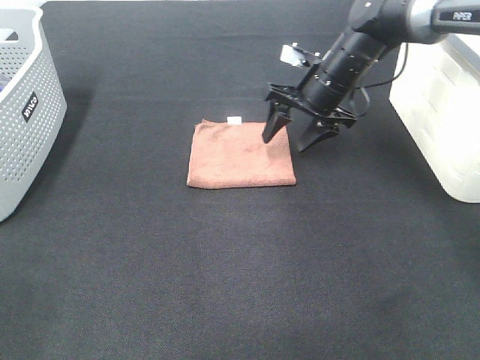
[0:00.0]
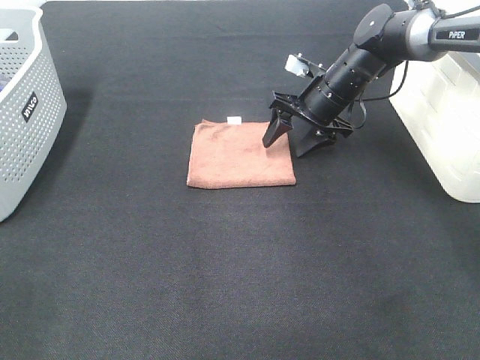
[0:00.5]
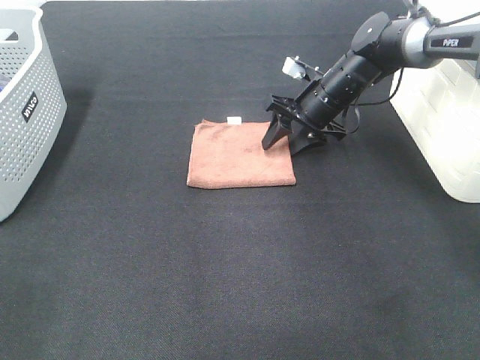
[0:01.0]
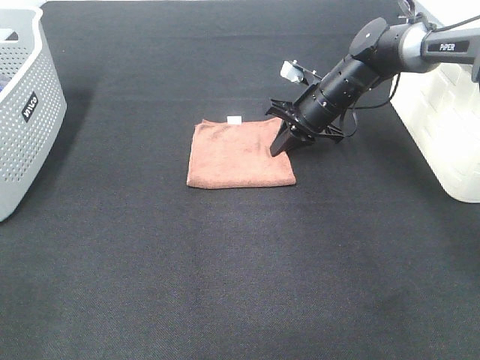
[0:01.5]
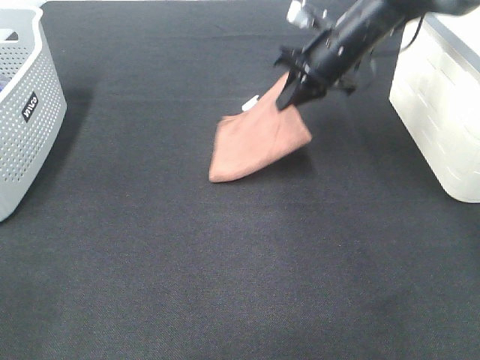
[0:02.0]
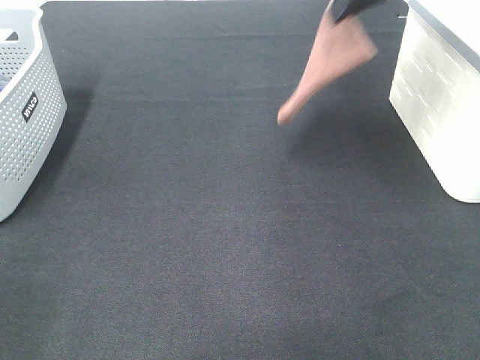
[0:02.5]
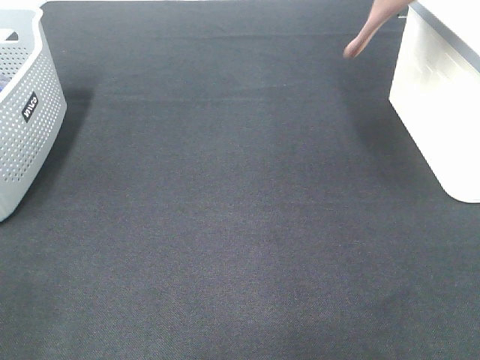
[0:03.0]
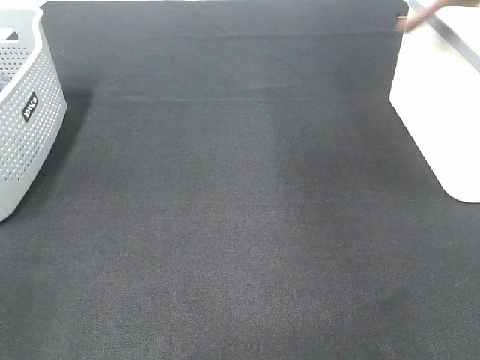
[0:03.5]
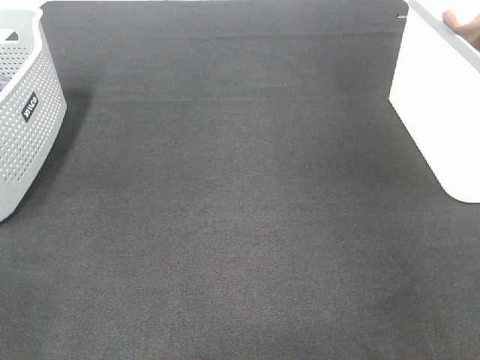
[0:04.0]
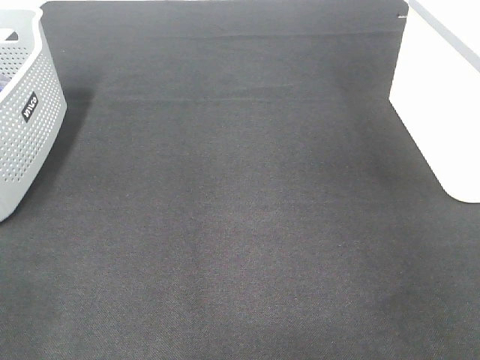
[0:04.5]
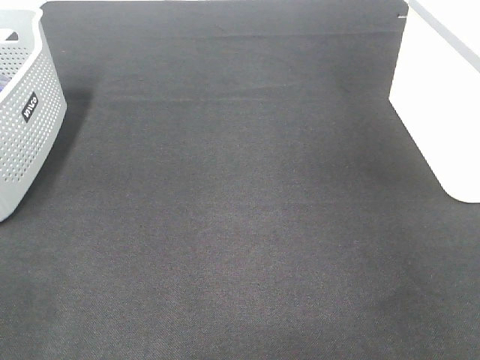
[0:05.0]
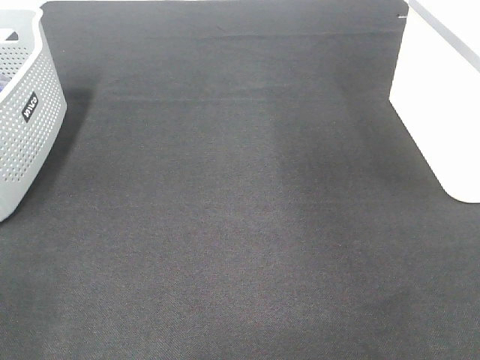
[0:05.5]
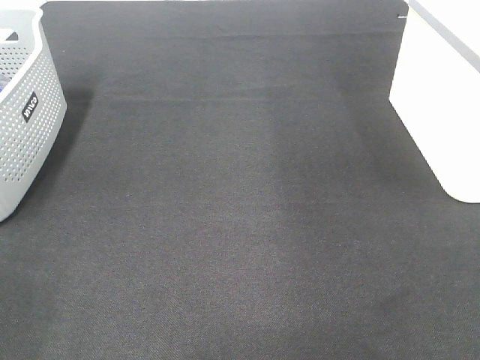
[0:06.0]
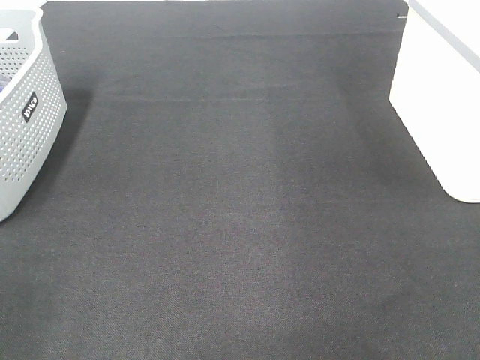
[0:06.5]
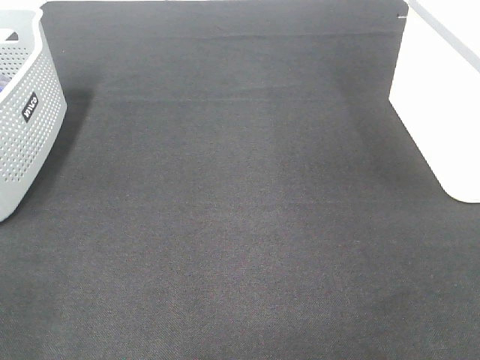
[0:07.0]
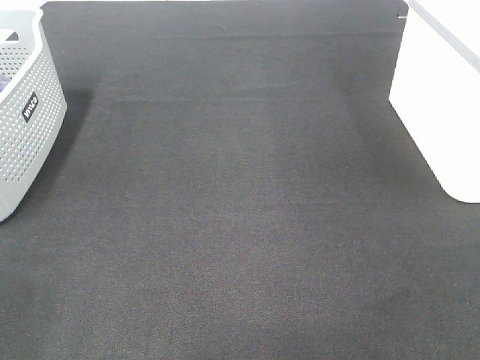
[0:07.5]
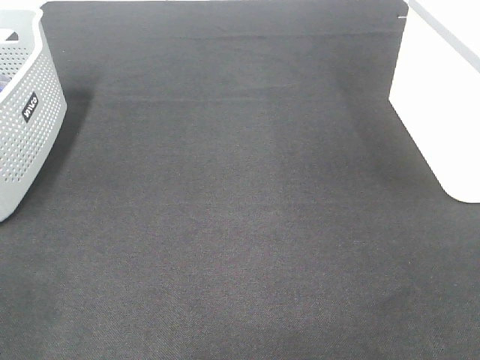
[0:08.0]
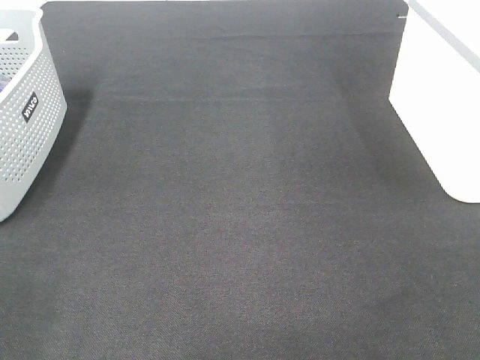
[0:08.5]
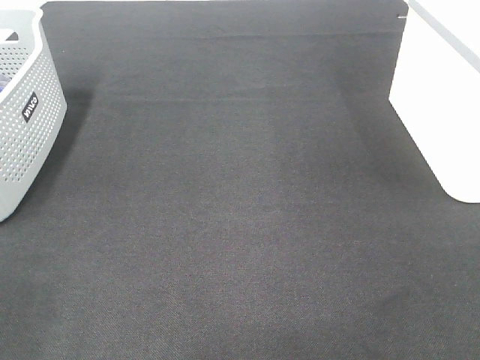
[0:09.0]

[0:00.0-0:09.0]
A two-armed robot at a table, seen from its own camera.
Step, 0:02.0 to 0:05.0: Right hand: place the brown towel in right basket.
0:00.0 to 0:02.0: The right gripper goes approximately 5 cm upward, and closes.
0:02.0 to 0:04.5: The right gripper shifts roughly 25 cm to the right, and opens its fingers.

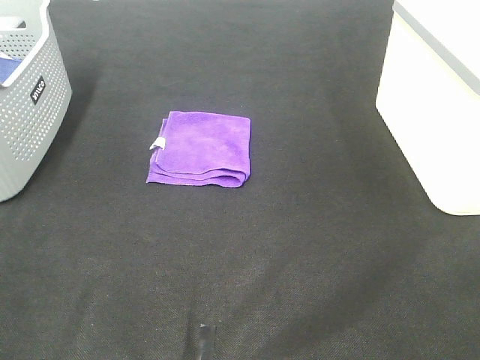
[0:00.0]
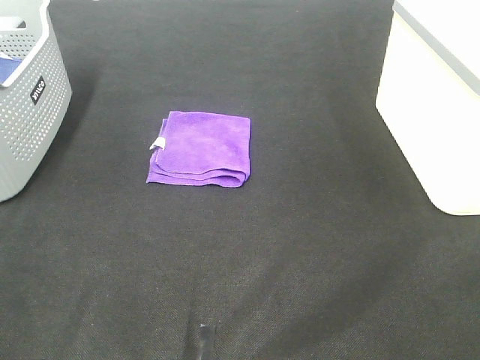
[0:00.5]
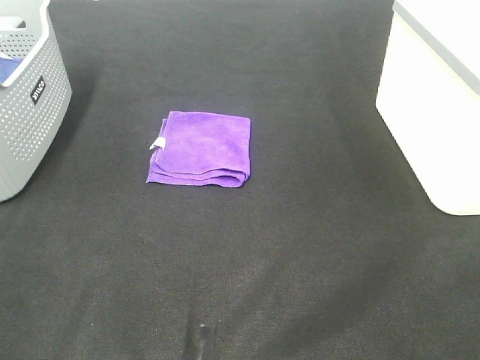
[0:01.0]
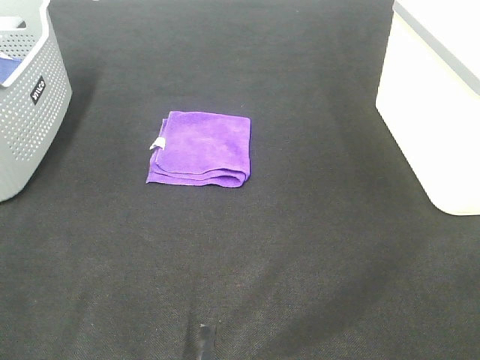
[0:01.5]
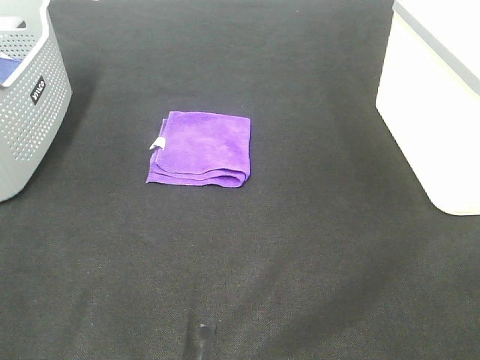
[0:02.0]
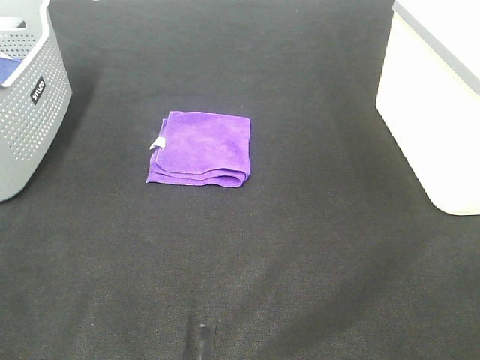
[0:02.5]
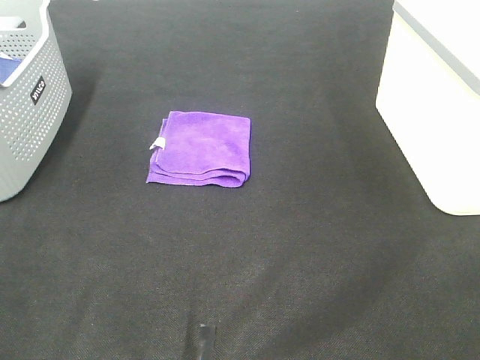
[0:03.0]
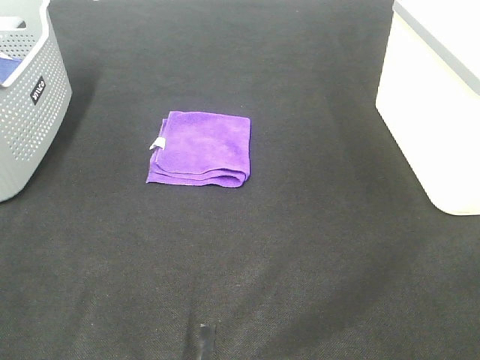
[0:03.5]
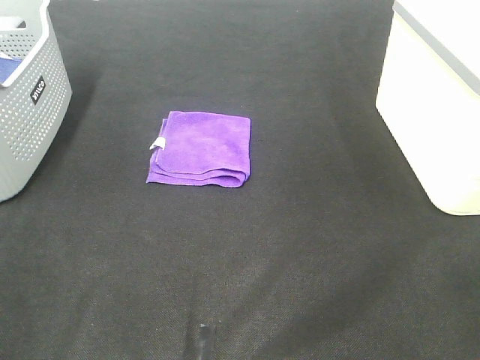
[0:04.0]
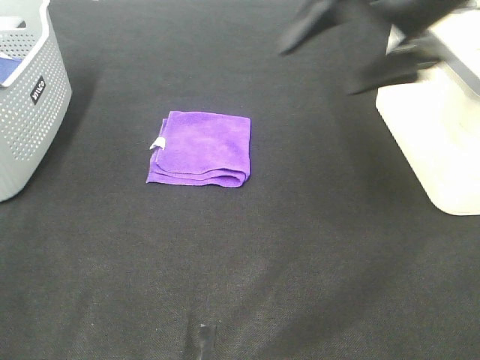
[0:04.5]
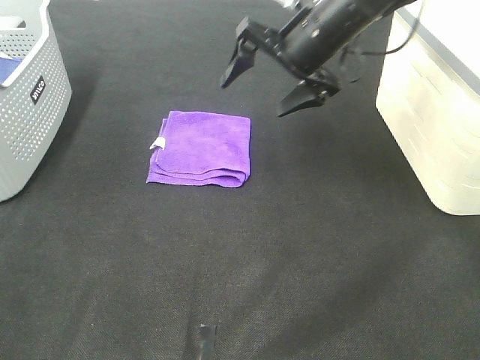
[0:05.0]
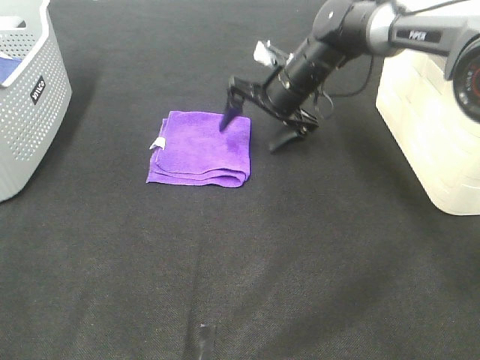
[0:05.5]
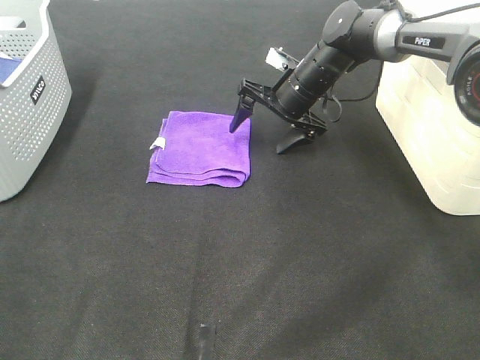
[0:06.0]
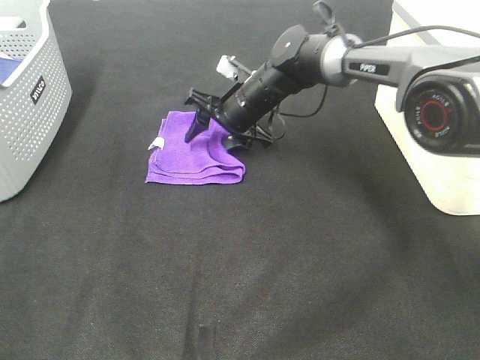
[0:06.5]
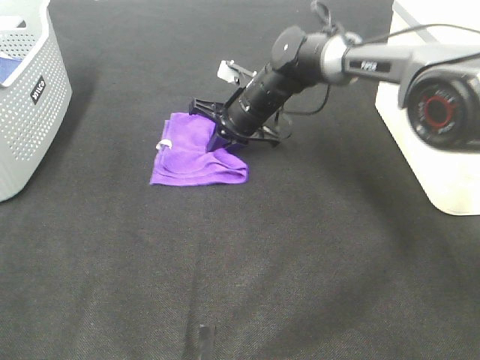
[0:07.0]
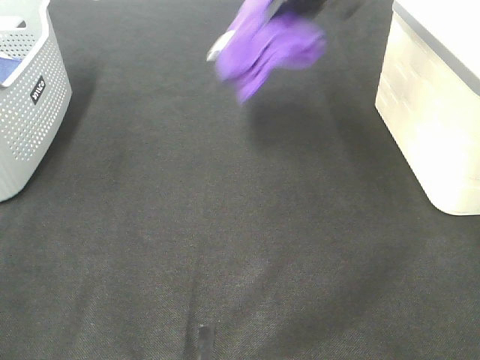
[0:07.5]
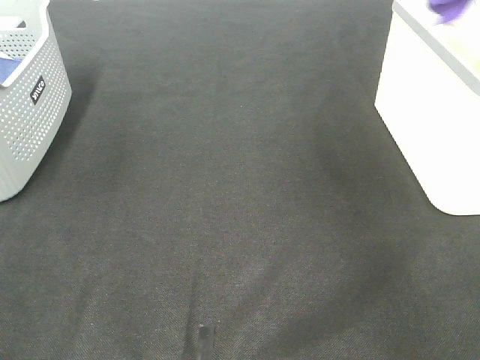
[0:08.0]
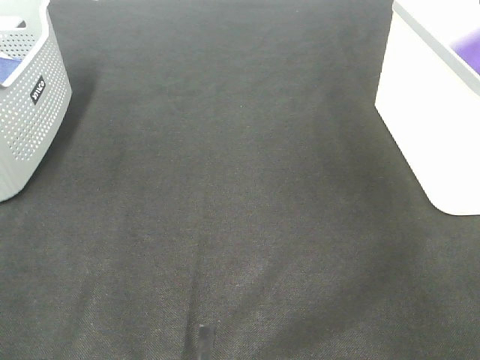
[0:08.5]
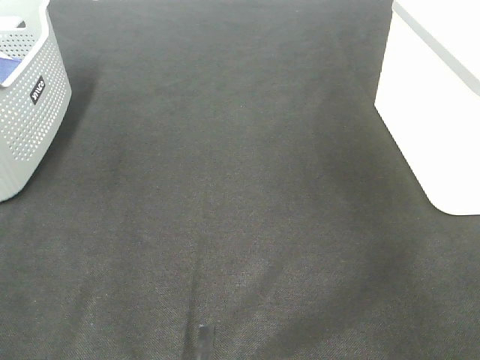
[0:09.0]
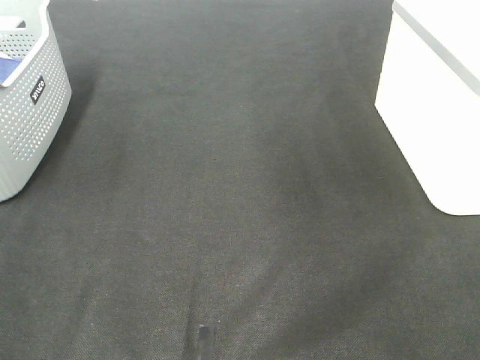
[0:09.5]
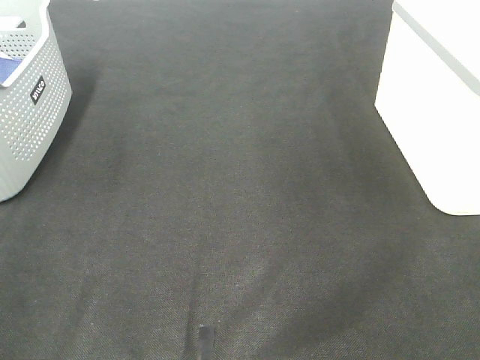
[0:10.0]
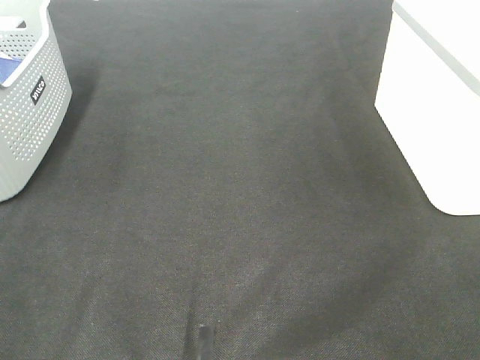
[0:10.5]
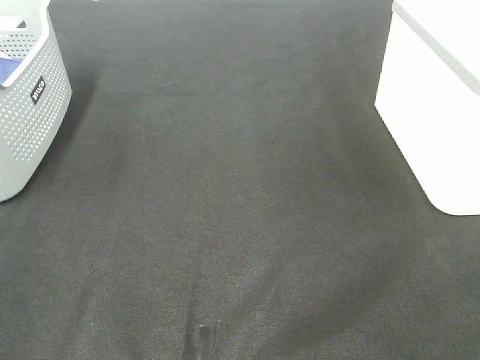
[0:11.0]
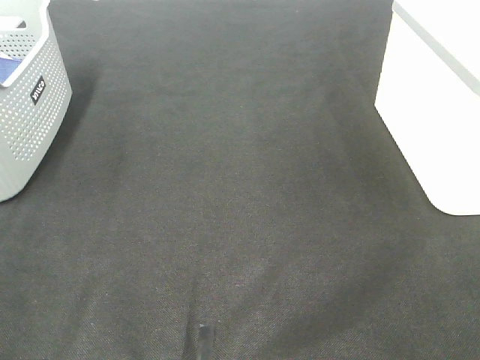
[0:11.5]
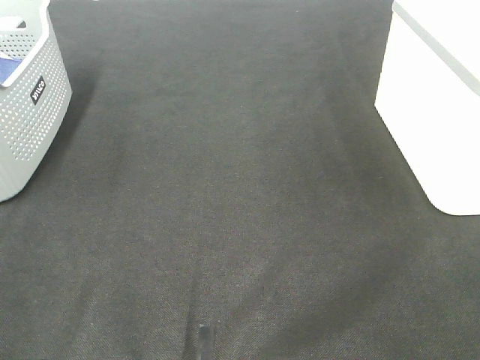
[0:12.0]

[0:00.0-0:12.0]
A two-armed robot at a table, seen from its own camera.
Step, 0:00.0 to 0:06.5: Right hand: grab the folded purple towel.
Step, 0:07.0 to 0:08.5: Right hand: place the purple towel in right basket.
0:00.0 to 0:02.0: The two grippers keep their place.
0:04.0 to 0:06.0: The right gripper heads forward, downward and to the left, covering approximately 50 cm.
0:06.0 to 0:08.0: The right gripper travels upward and to the right by about 40 cm, and closes.

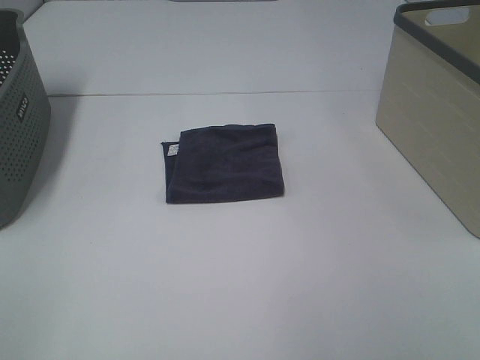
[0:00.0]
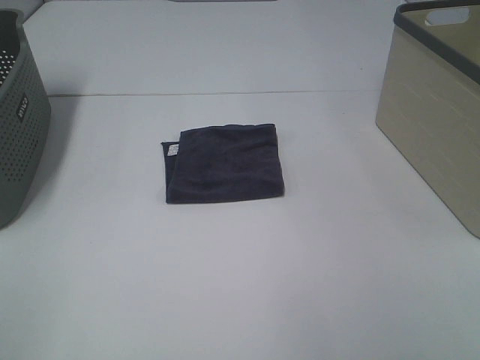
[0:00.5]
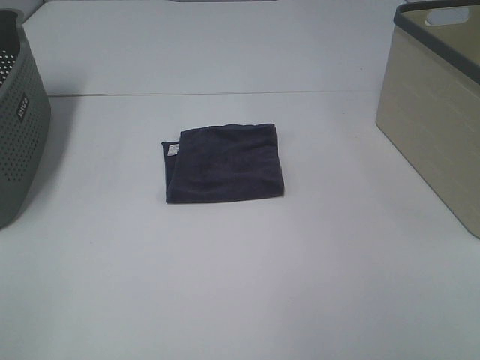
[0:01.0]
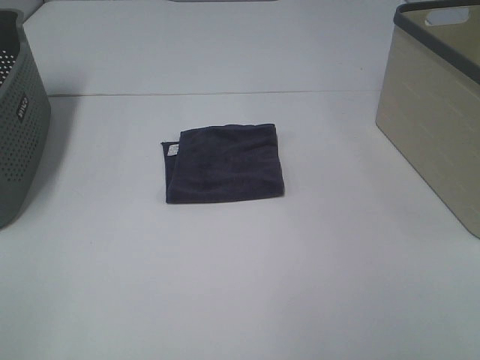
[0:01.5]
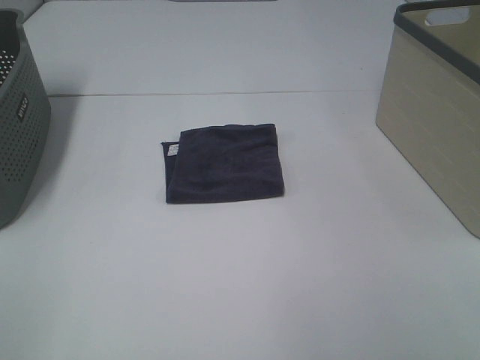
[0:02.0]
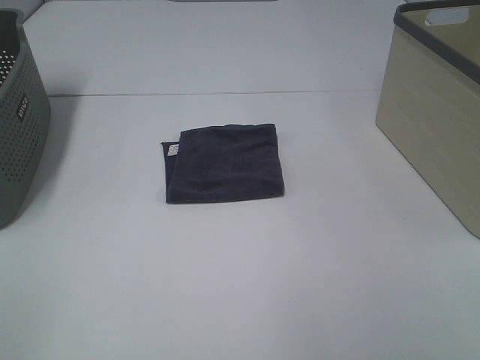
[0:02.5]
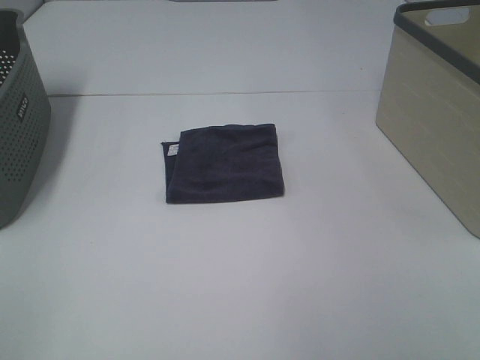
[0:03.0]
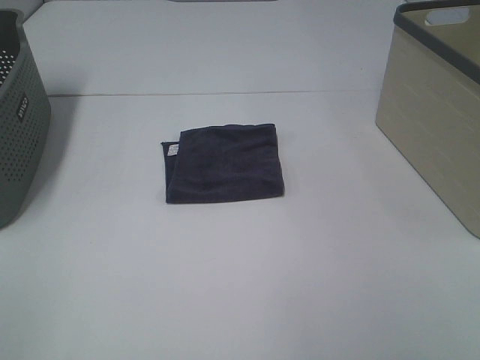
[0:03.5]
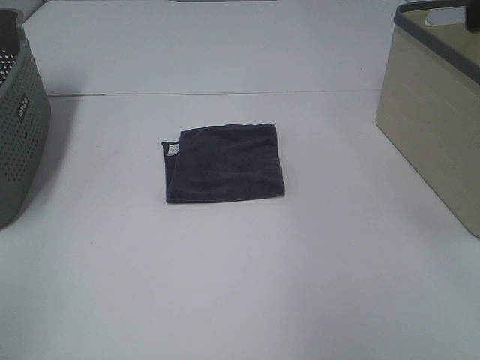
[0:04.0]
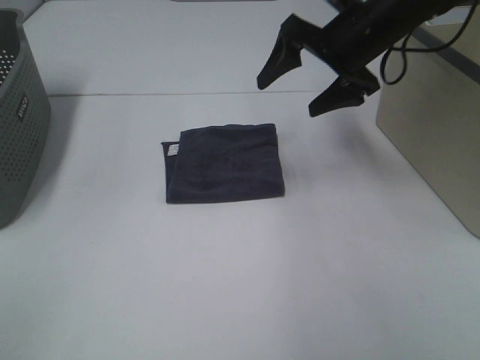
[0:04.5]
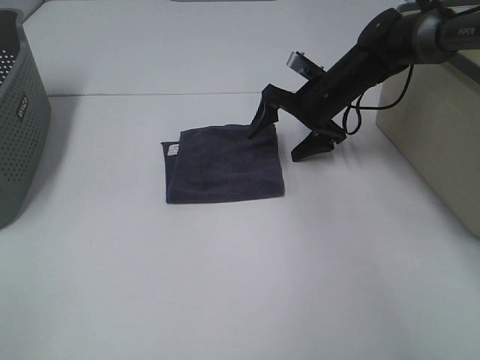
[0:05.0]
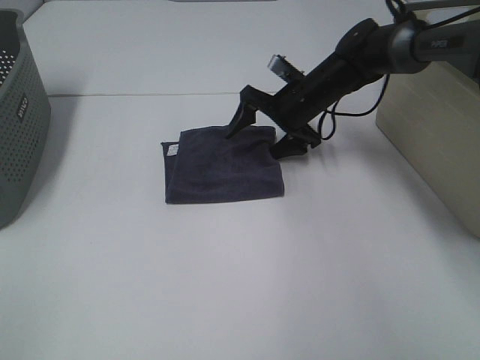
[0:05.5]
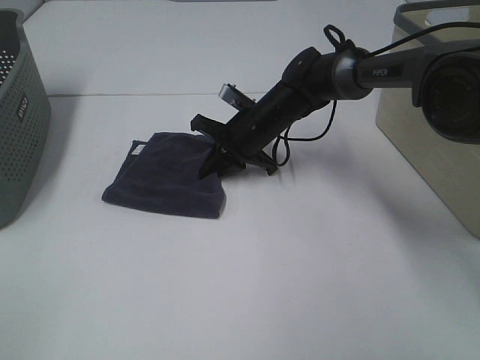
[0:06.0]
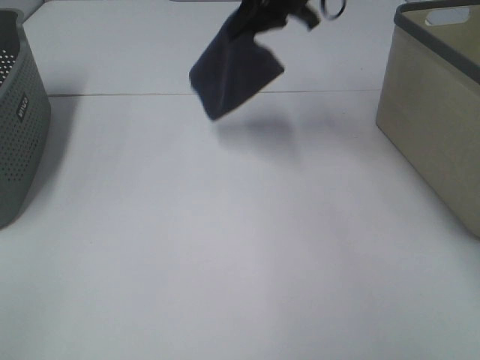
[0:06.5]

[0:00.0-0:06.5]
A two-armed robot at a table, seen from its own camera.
Step, 0:00.0 to 0:05.5: Right hand: grab the folded grey towel.
0:00.0 to 0:02.0: Both grippers stay put.
0:02.0 to 0:04.5: The right gripper travels forward by some 40 cm.
0:04.5 to 0:06.5: The right gripper heads forward and to the left, covering approximately 10 cm, goes downward and returns, some 15 cm each way, and closes up.
